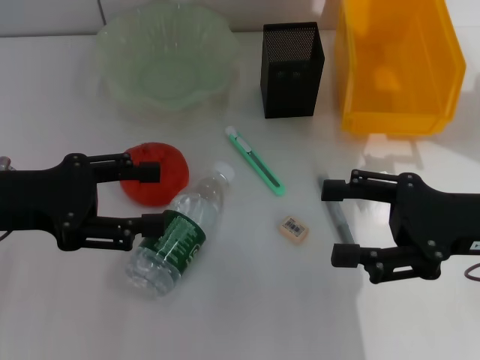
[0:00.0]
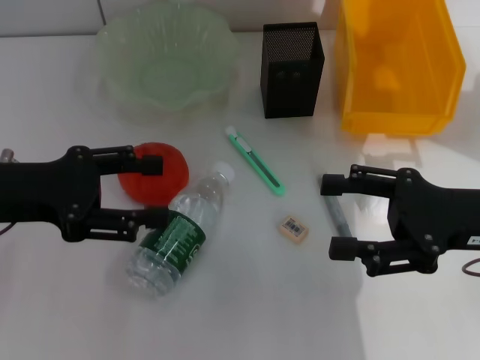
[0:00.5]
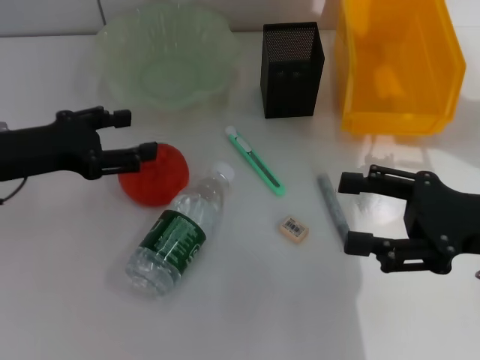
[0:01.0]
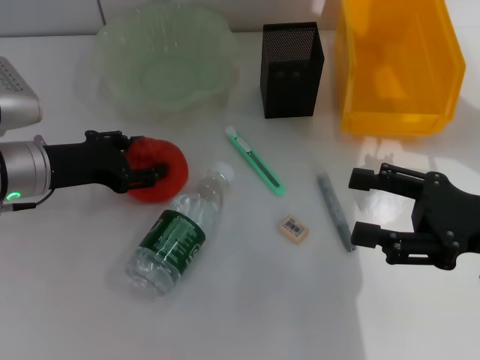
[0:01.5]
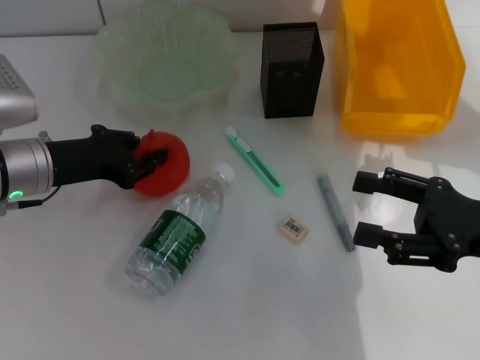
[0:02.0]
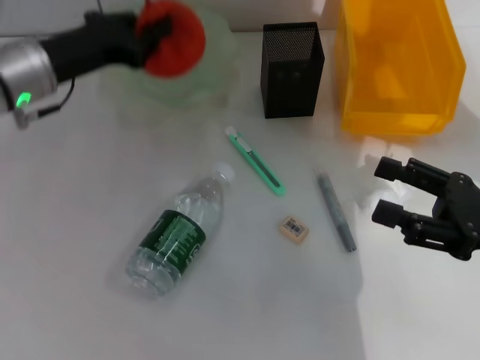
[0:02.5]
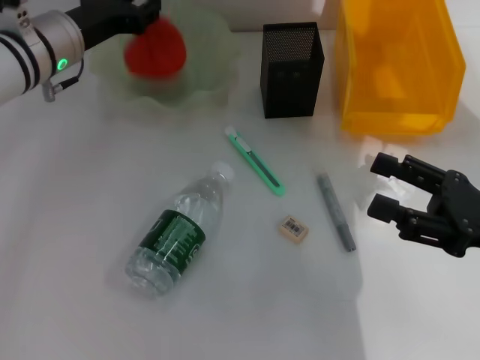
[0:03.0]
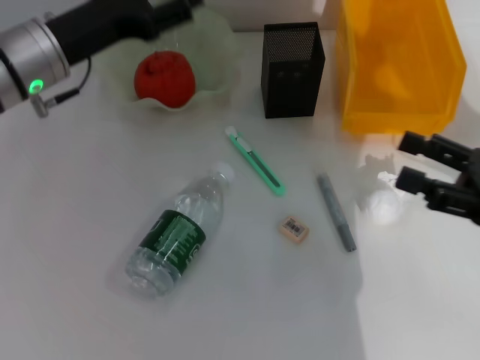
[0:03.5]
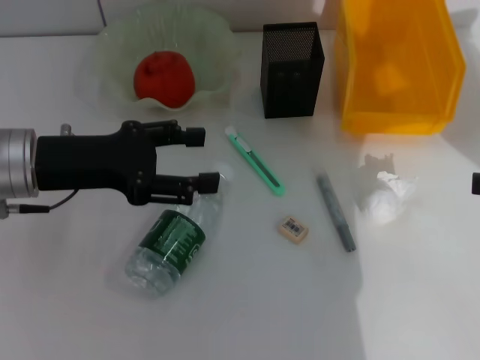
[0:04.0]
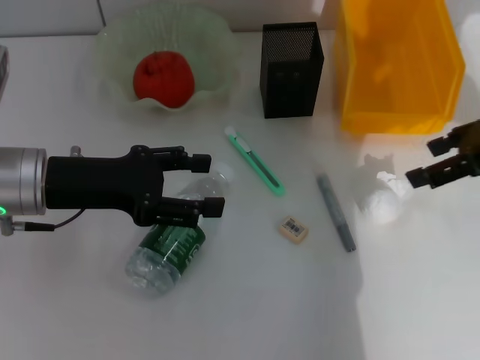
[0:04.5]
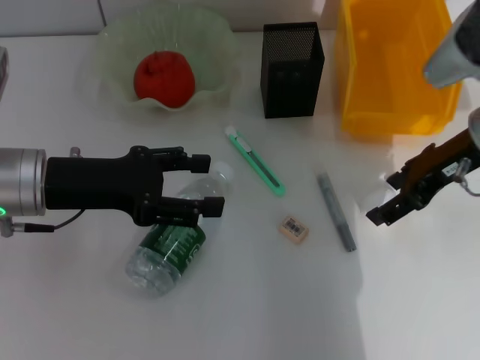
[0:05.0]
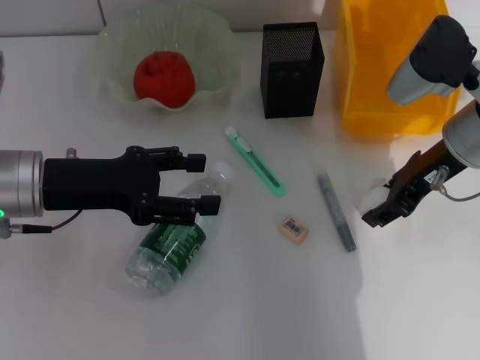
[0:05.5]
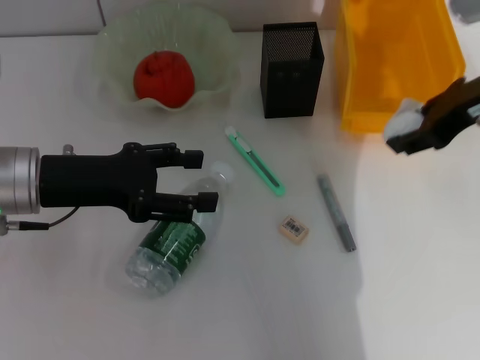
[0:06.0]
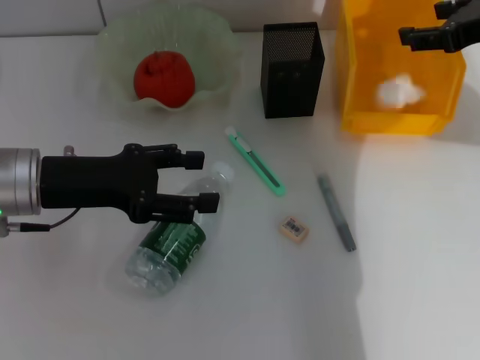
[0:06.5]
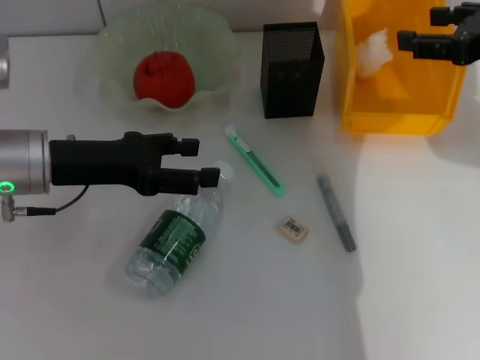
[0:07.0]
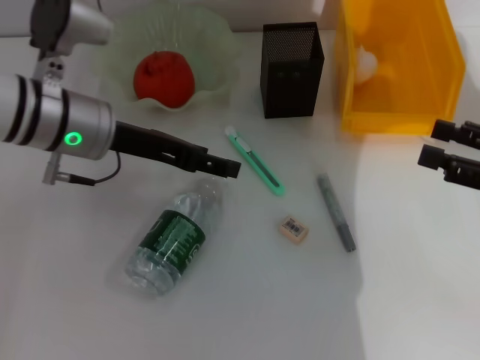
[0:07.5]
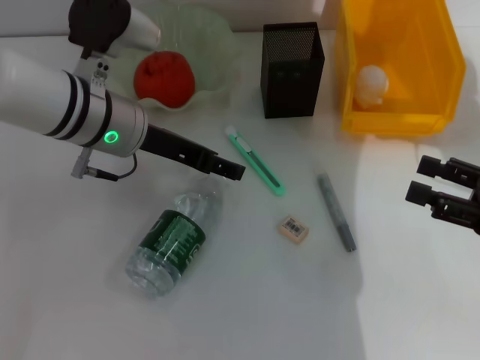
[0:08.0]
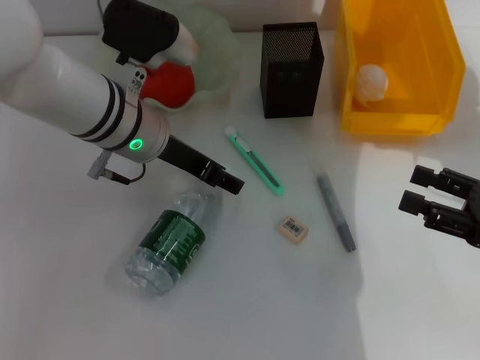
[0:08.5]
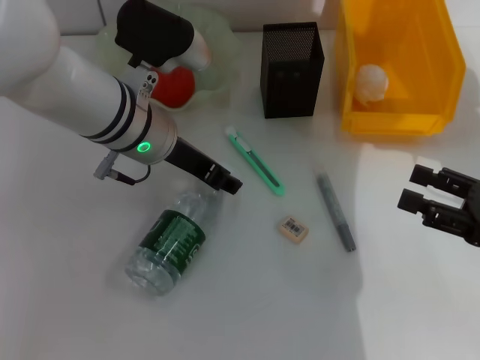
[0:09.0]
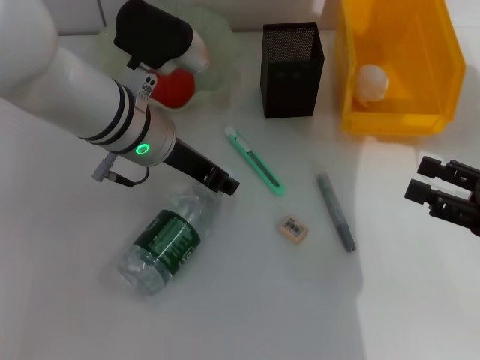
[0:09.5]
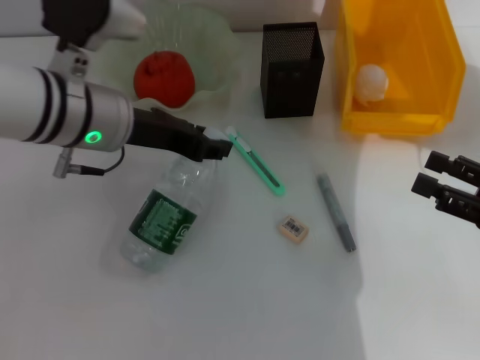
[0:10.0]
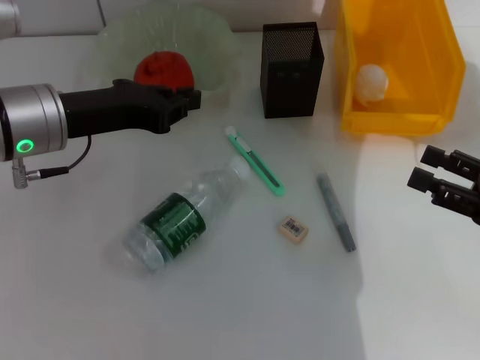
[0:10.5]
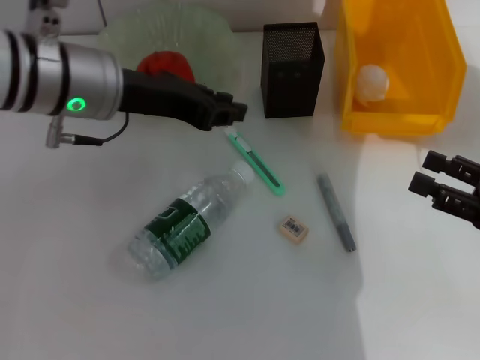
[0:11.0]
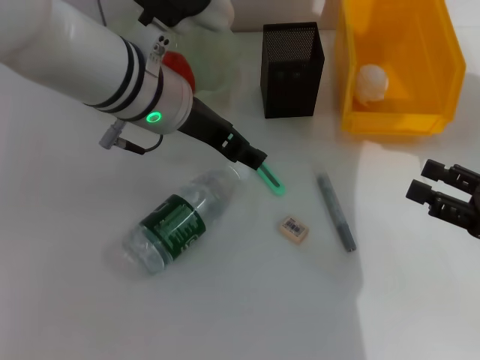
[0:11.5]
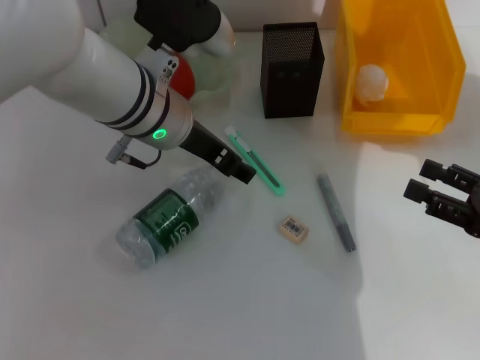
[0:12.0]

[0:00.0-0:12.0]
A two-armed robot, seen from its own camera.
Step, 0:00.0 to 0:01.5: Grab the orange with the left hand.
Step, 0:02.0 to 0:03.0: Place the orange into the fruit bowl with the left hand.
Step, 0:03.5 to 0:05.0: Grab the paper ball with the right hand.
Step, 0:05.5 to 0:06.5: Place the paper ball into the trash can with the right hand.
0:00.0 to 0:02.0: The left gripper goes roughly 10 cm forward and downward, and closes its fingers.
0:02.0 to 0:04.0: The right gripper heads to the right and upward, covering approximately 10 cm, while the left gripper reaches roughly 10 cm forward, then returns, and opens its fingers.
0:04.0 to 0:06.0: The right gripper moves to the left, forward and upward, approximately 20 cm, and closes its fingers.
0:06.0 to 0:08.0: The right gripper heads downward, backward and to the right, covering approximately 20 cm. The left gripper shifts about 10 cm to the right and forward.
0:08.0 to 0:10.0: The left gripper closes up.
0:10.0 to 0:12.0: The left gripper is displaced to the right by approximately 5 cm, and opens.

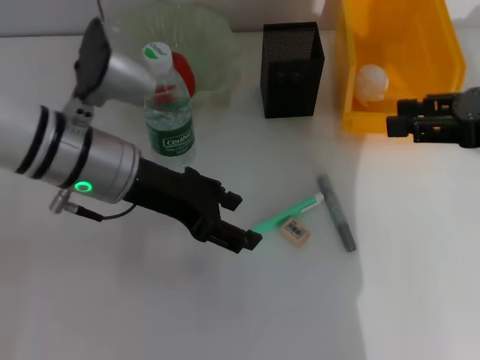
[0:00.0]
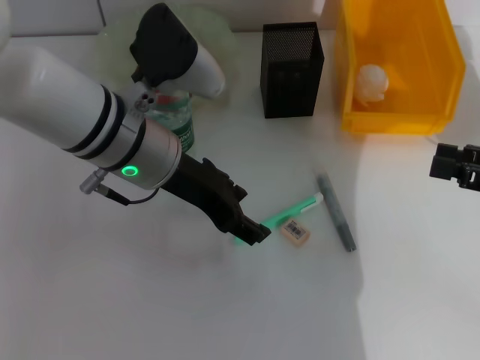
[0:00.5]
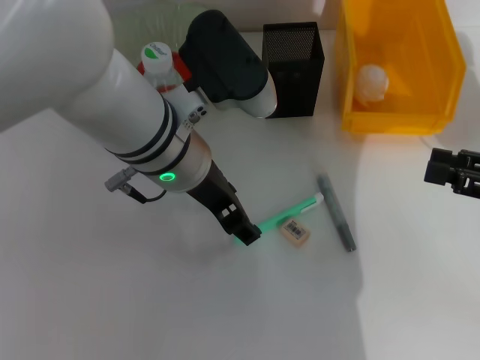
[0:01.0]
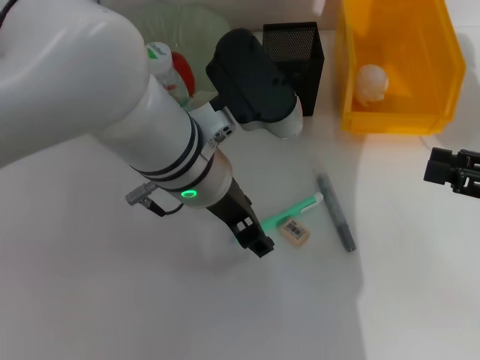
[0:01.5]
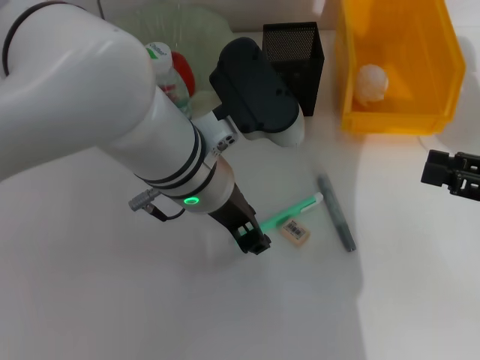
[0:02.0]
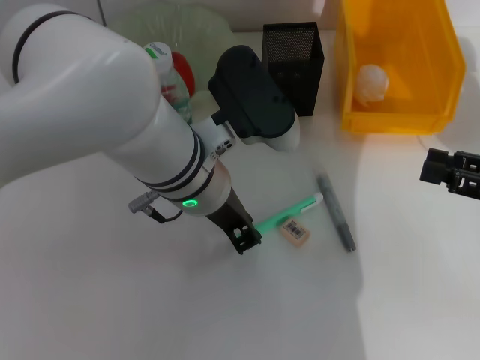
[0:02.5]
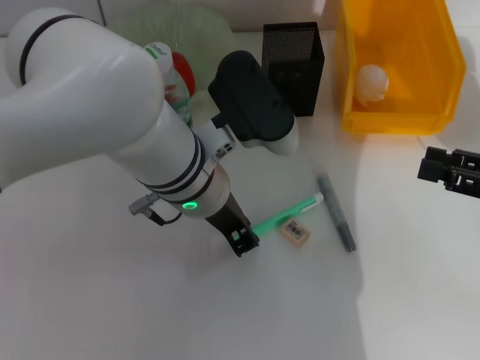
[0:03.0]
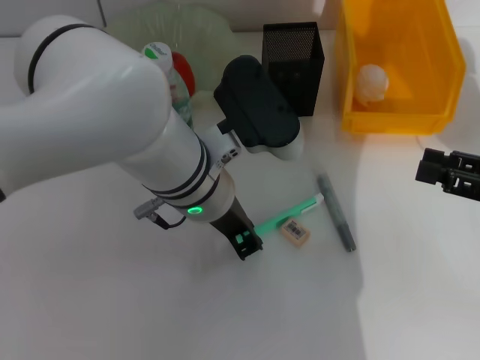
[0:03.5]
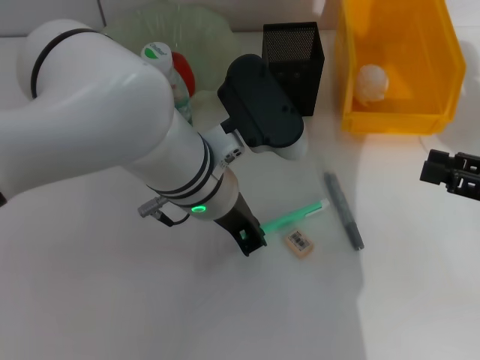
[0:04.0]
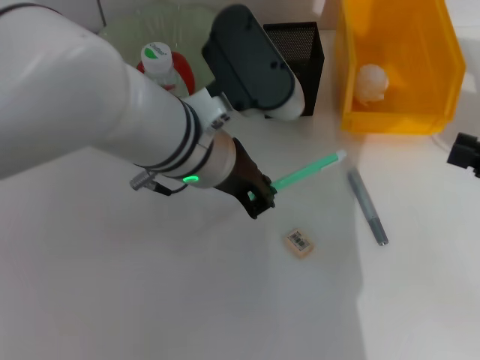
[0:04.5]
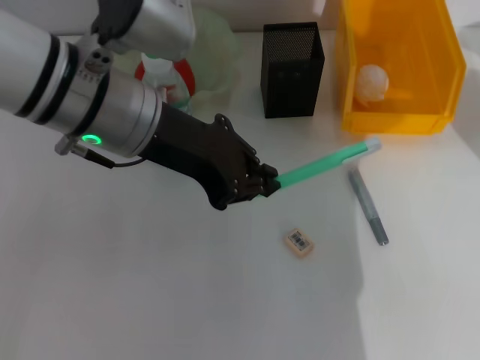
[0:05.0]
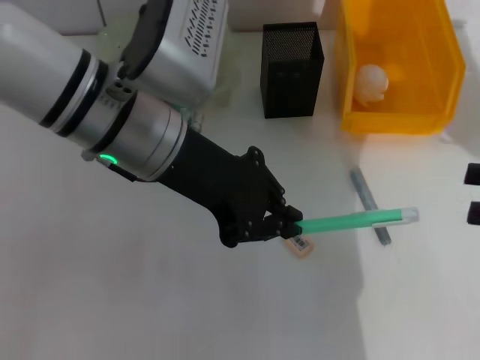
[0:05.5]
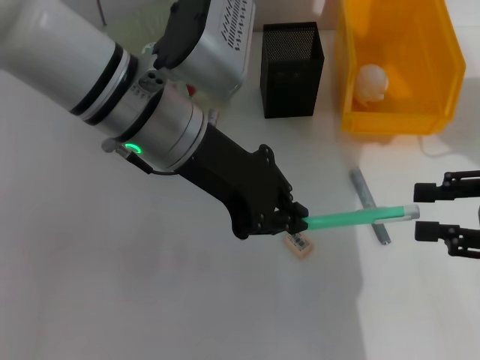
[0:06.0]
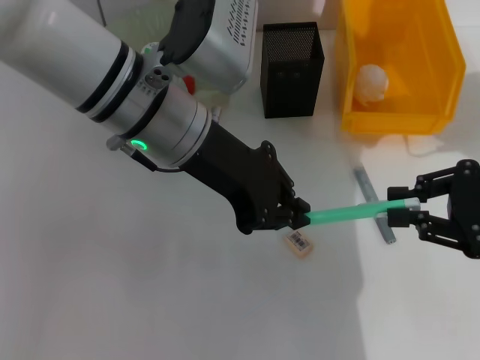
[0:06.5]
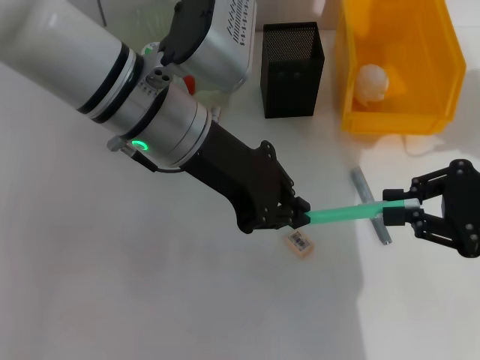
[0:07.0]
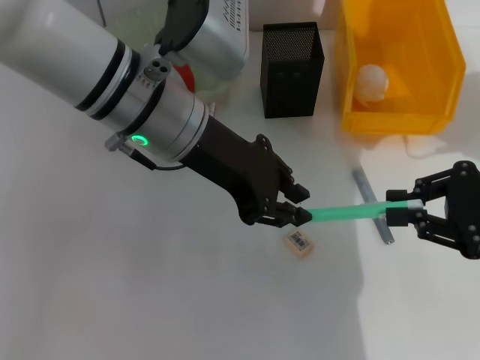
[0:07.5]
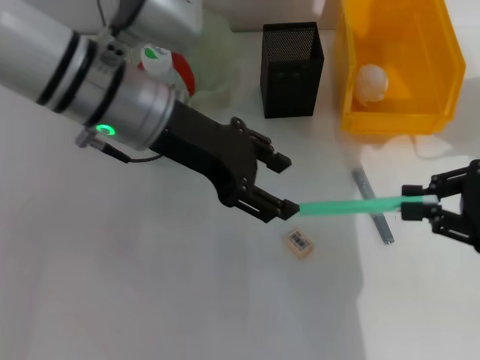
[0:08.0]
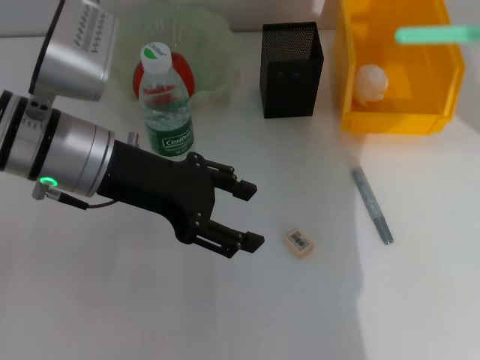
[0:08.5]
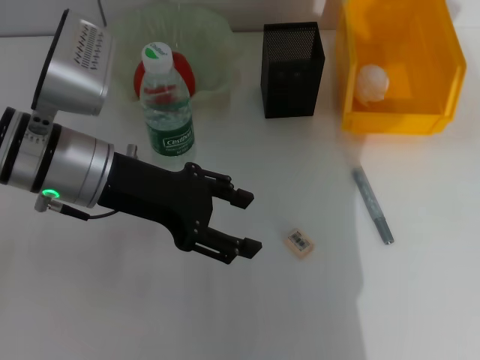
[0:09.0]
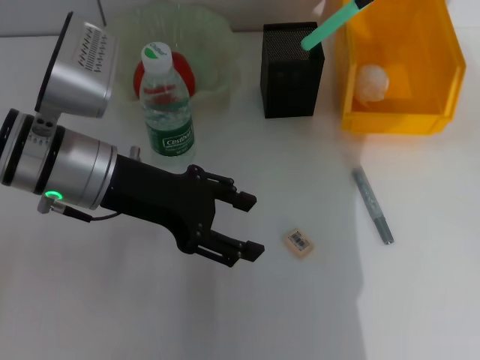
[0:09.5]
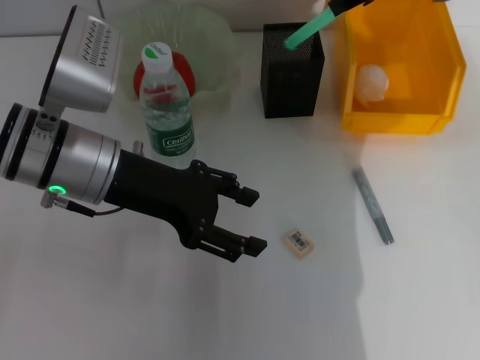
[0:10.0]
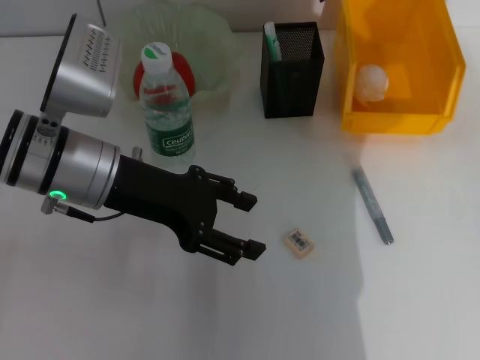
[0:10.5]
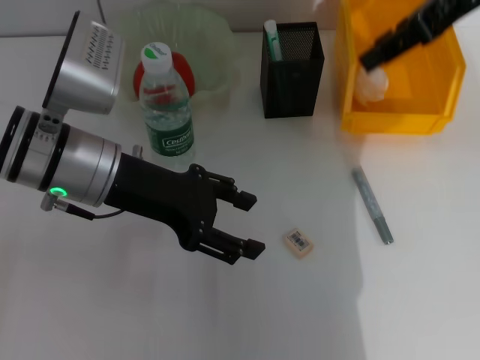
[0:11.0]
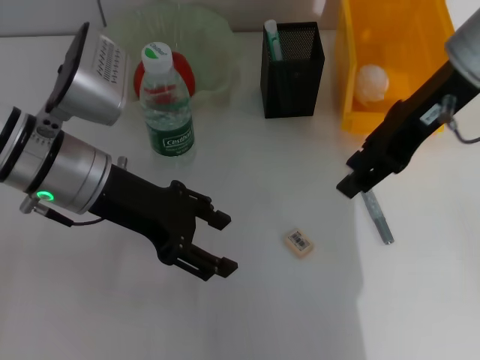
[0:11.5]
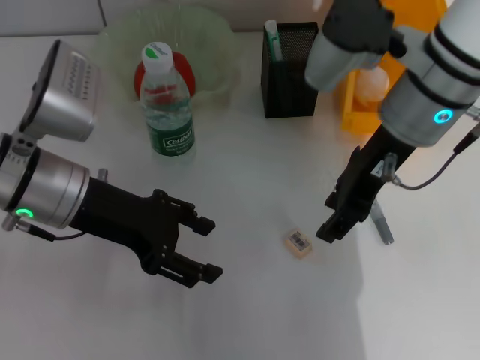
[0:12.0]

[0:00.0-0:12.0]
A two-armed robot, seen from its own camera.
Step, 0:00.0 to 0:03.5: Grab the blue utility knife with the left hand.
Step, 0:04.0 to 0:07.5: Pass the blue utility knife from the left hand to the right hand.
Step, 0:08.0 to 0:10.0: Place the blue utility knife into the pen holder with the left hand.
0:00.0 to 0:02.0: The right gripper goes approximately 10 cm downward and backward; the left gripper travels to the right by some 10 cm.
0:02.0 to 0:04.0: The left gripper closes.
0:04.0 to 0:06.0: The left gripper is displaced upward by about 5 cm.
0:06.0 to 0:08.0: The right gripper closes. Meanwhile the left gripper opens up.
0:08.0 to 0:10.0: The right gripper travels forward, upward and to the left by roughly 30 cm; the left gripper travels to the left by roughly 5 cm.
0:10.0 to 0:12.0: The right gripper travels backward, to the left and downward by approximately 15 cm, and opens its fingers.

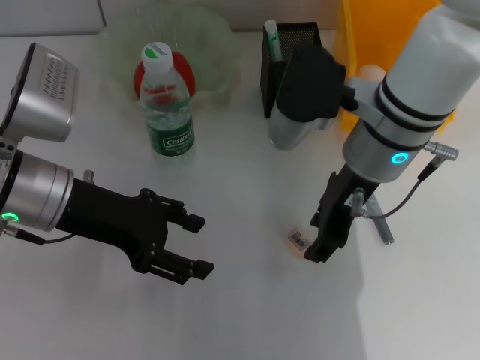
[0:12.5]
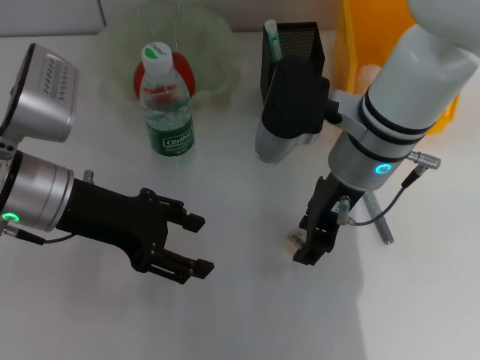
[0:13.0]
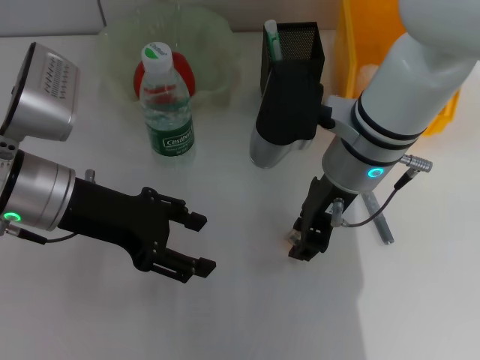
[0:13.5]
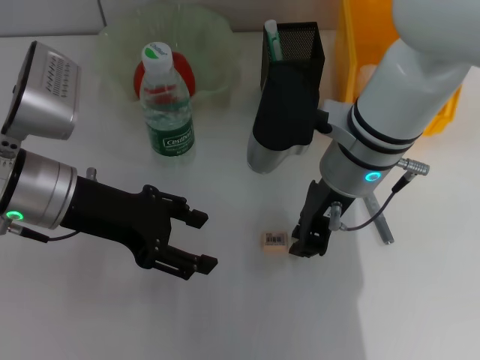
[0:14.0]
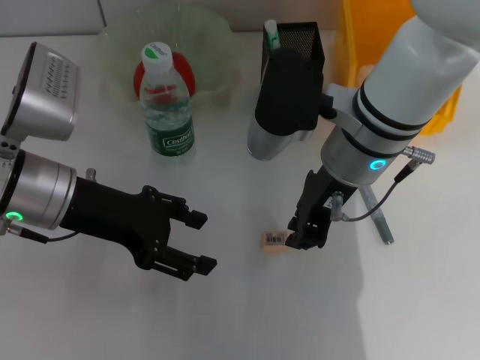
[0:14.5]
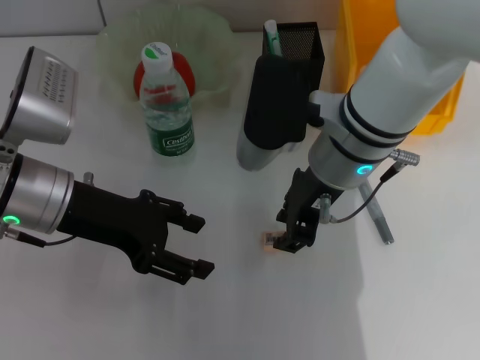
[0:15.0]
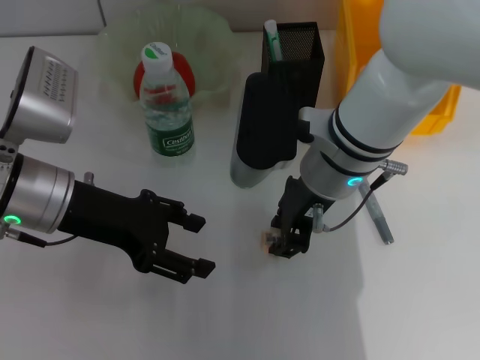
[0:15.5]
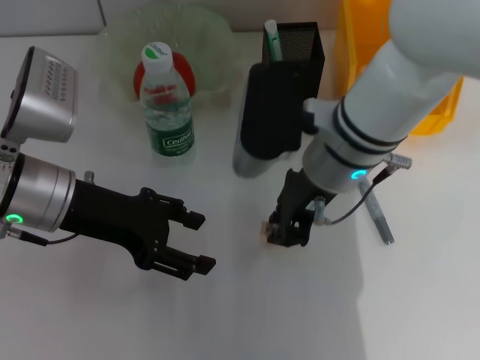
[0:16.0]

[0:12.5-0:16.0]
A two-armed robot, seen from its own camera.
Step, 0:12.5 to 0:15.5: Grab the eraser with the right hand.
0:12.5 to 0:14.5: The right gripper closes its fingers.
0:14.5 to 0:16.0: There are only small adjustments of the grippers.
